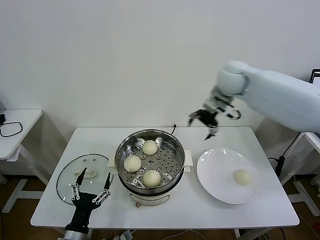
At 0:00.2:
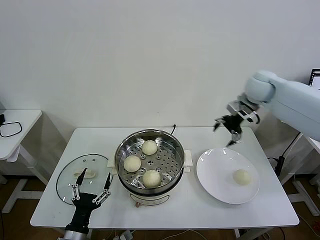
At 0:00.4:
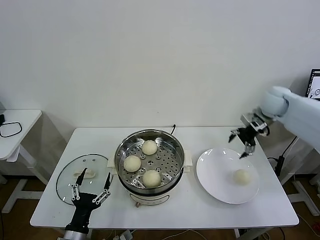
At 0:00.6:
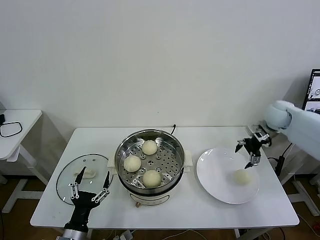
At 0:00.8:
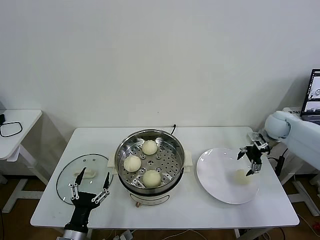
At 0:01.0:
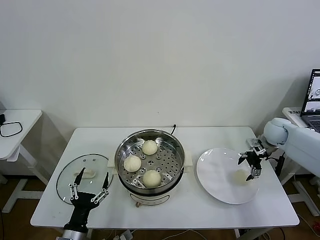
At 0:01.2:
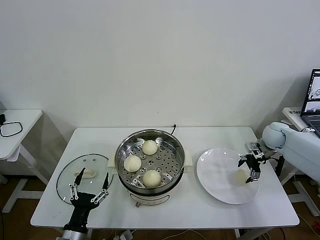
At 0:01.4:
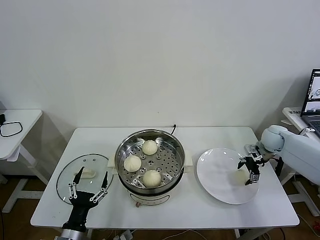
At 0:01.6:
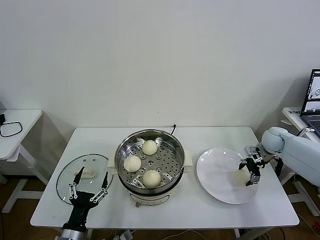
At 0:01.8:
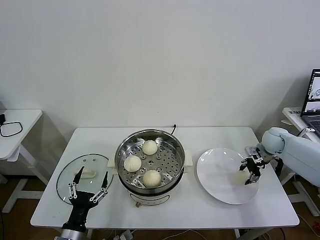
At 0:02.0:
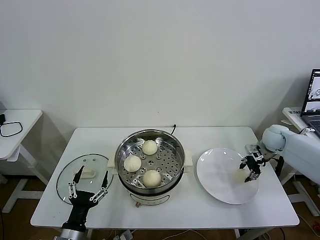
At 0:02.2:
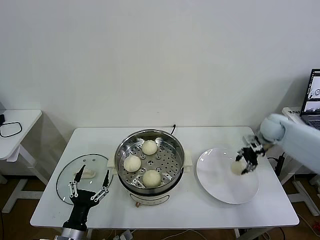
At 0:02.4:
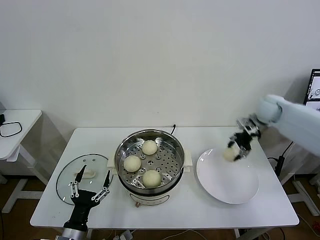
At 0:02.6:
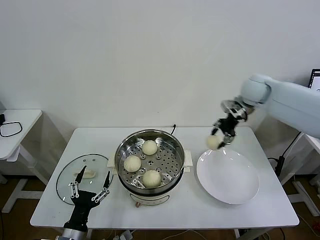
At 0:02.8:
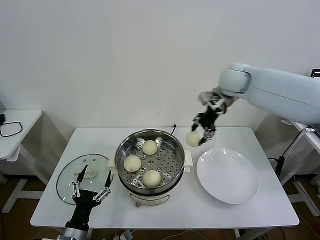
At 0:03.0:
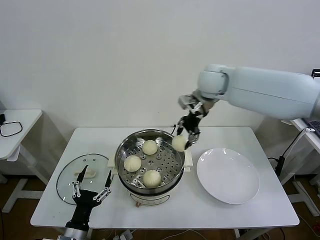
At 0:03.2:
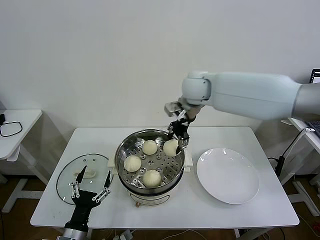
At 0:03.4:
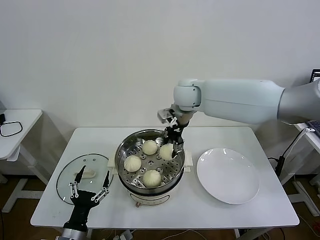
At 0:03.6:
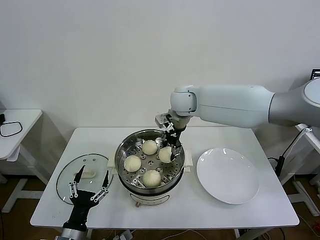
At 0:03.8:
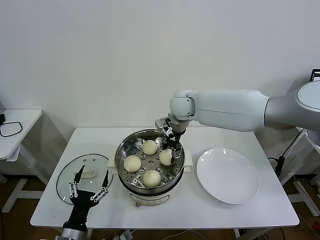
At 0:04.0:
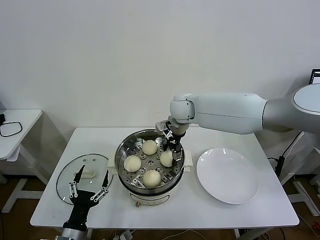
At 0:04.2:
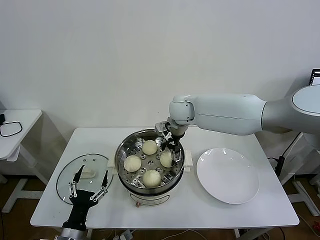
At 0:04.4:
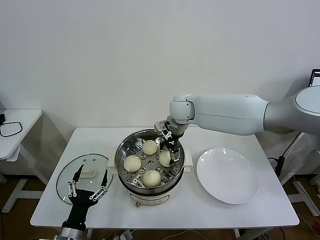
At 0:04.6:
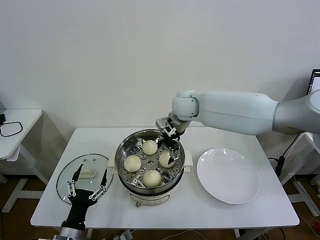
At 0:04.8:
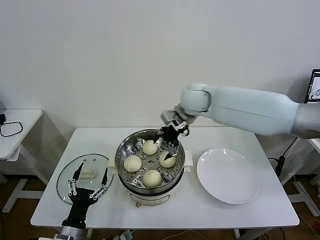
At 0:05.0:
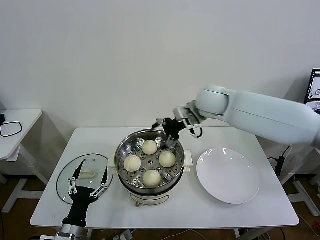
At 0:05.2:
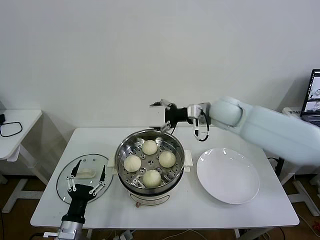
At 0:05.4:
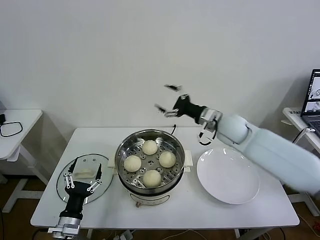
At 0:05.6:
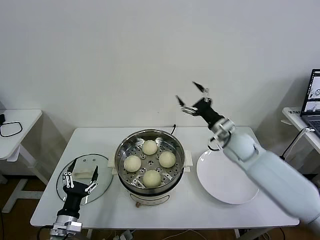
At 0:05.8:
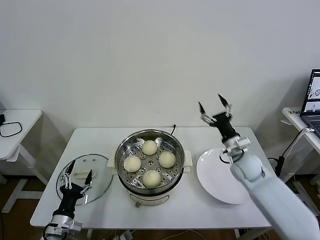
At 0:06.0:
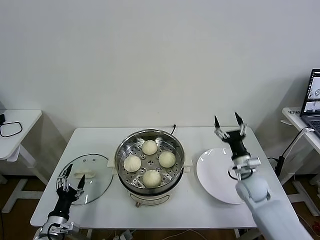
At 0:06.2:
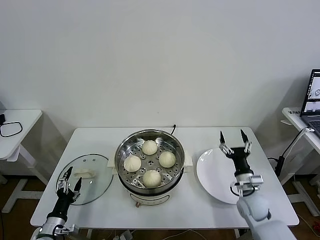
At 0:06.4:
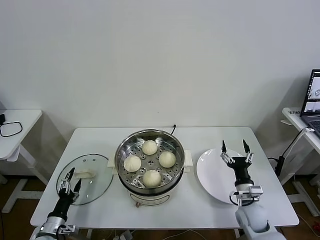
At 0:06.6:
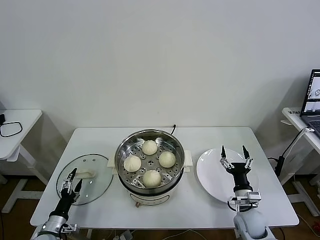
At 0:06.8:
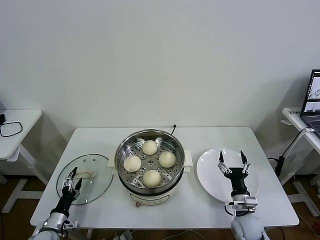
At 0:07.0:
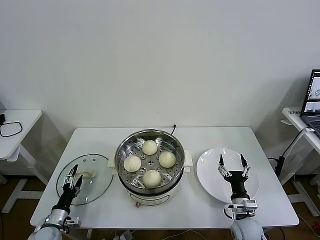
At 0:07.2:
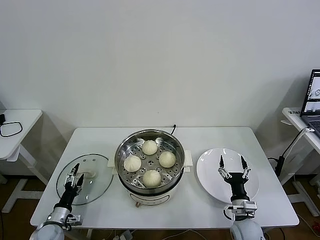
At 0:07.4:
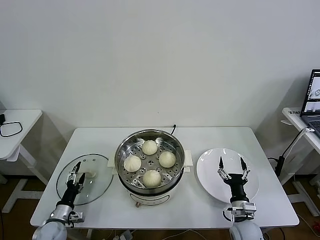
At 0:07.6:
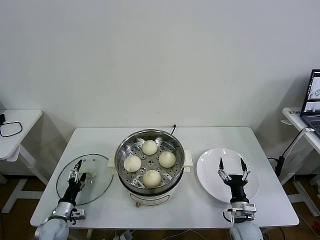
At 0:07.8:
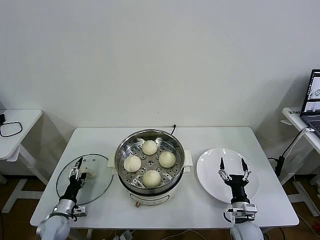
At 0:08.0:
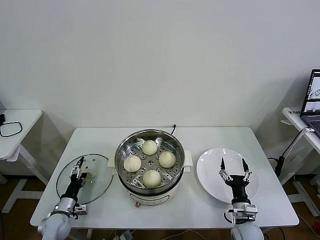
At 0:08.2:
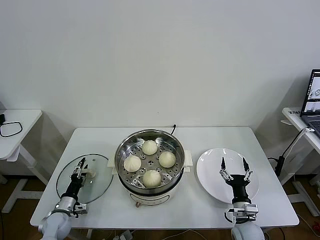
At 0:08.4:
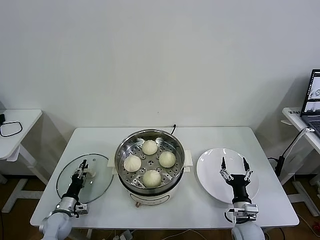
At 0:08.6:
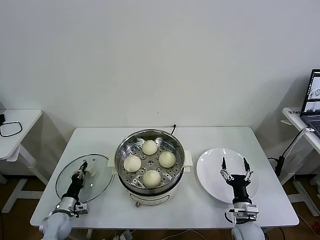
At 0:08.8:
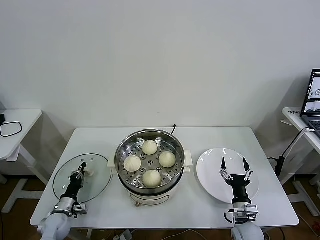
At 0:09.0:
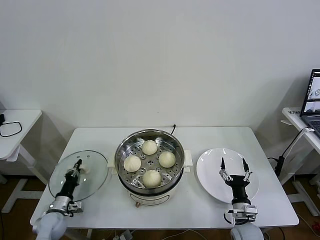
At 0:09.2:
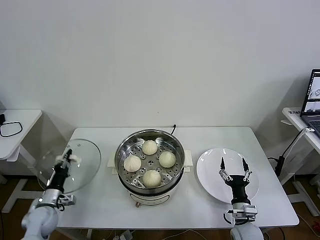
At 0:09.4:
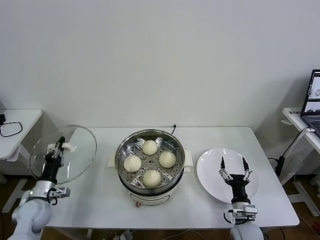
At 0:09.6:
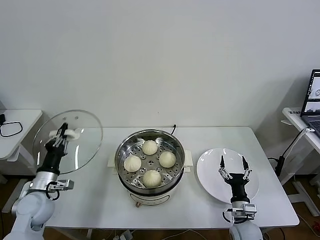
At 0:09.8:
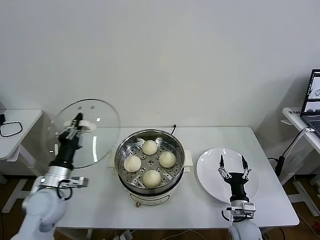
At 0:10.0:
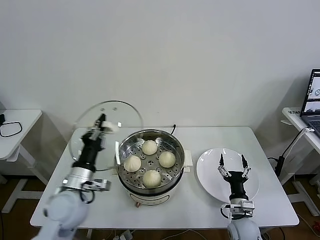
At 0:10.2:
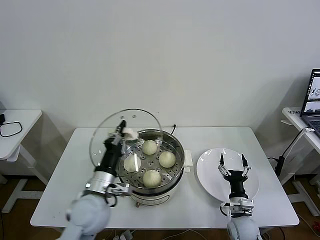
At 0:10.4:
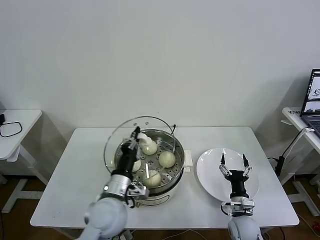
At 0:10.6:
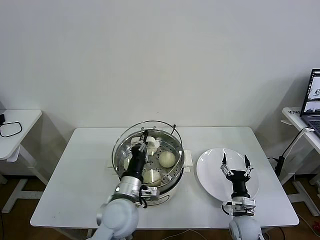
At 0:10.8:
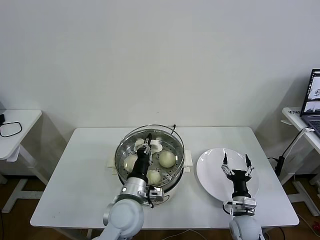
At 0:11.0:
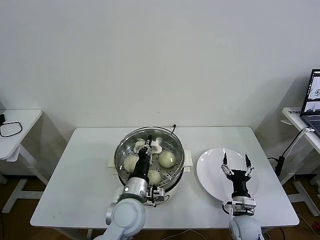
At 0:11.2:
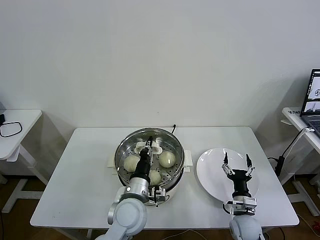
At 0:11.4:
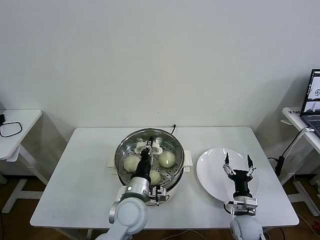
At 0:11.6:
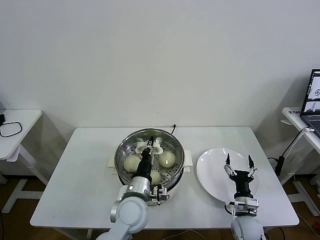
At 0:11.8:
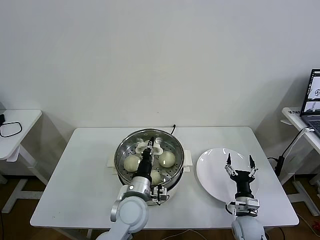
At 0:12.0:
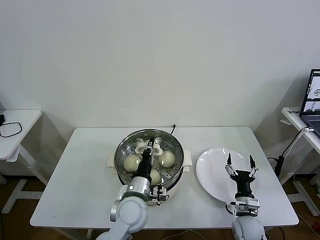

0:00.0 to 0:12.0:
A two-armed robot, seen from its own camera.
Task of the whole recording: take steamed baozi put them in steamer then cover it.
Step, 0:00.0 to 0:01.8: Grasp the baozi in the plate with right gripper.
Step, 0:02.2 to 0:04.4: Place the baozi on the steamer with right gripper.
Step, 0:04.6 to 0:08.8: Grasp the pot lid with left gripper.
0:00.0 to 0:01.6: The right gripper travels downward and to the right by approximately 30 cm.
0:01.6 to 0:03.0: The right gripper goes approximately 35 cm to the left and upward, and closes its fingers.
0:03.0 to 0:04.4: The right gripper travels downward and to the left by about 10 cm, and opens up.
0:04.4 to 0:06.0: The left gripper heads to the left, covering roughly 10 cm, while the right gripper shifts some 35 cm to the right, downward and backward.
0:06.0 to 0:07.6: The left gripper moves downward and forward, about 10 cm. Meanwhile the right gripper travels backward and downward by approximately 15 cm.
0:07.6 to 0:09.0: The left gripper closes its fingers.
0:09.0 to 0:10.4: The left gripper travels to the right and upward by about 35 cm.
0:10.4 to 0:12.0: The left gripper heads to the right and downward, covering about 10 cm.

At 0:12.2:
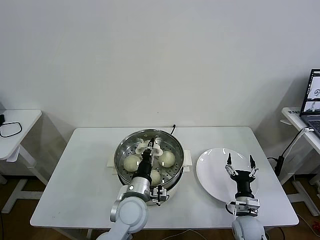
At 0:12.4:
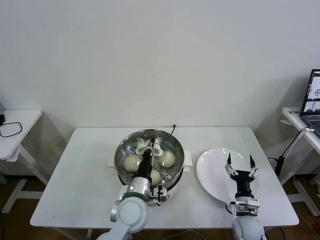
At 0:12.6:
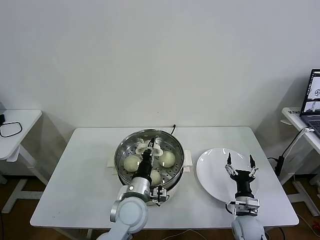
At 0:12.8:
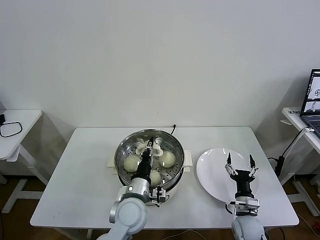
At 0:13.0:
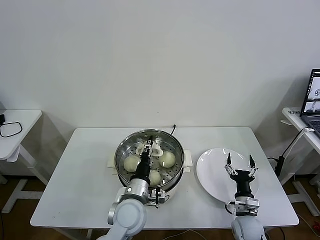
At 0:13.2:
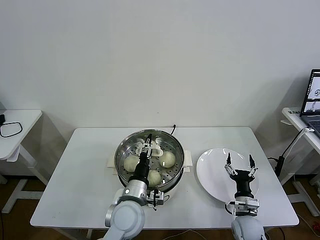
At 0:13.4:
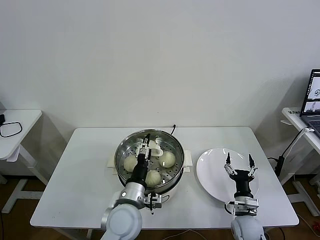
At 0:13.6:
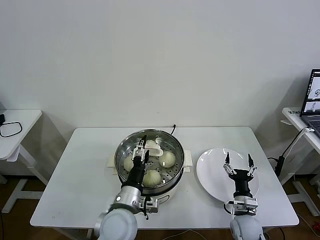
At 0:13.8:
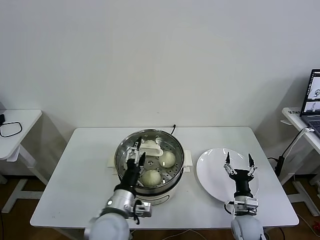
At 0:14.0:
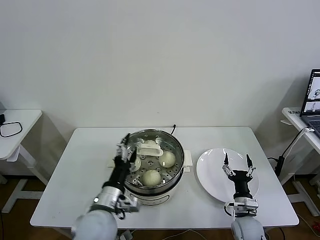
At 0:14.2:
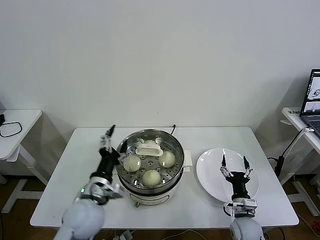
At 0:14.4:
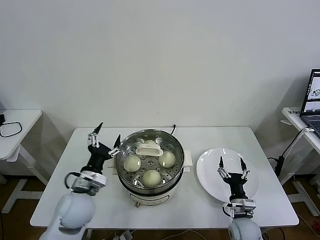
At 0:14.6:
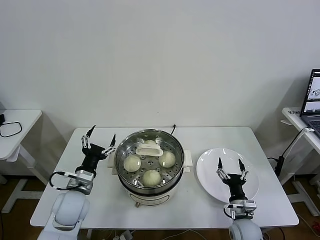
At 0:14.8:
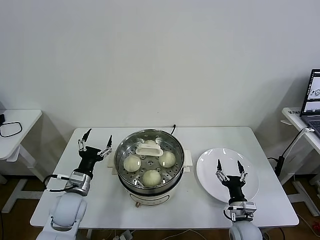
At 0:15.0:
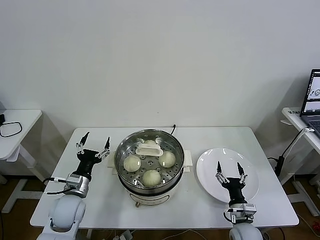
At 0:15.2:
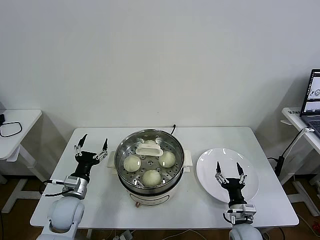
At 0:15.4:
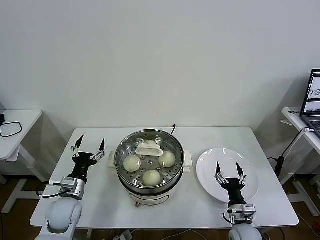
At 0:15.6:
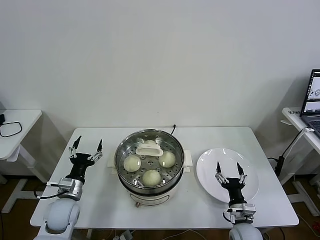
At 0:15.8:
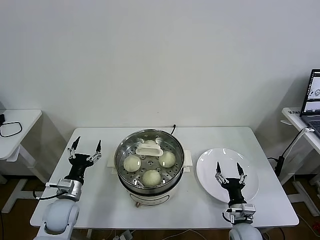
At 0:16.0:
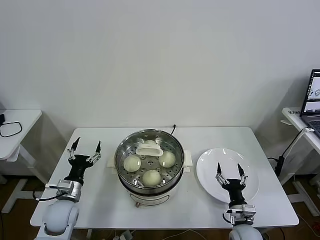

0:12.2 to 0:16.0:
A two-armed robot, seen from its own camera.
Task of the whole recording: take steamed baozi put them in steamer then cover it.
0:12.2 to 0:13.4: The left gripper opens its fingers.
0:13.4 to 0:14.8: The left gripper heads to the left, covering about 20 cm.
0:14.8 to 0:16.0: The left gripper changes place by about 5 cm.
